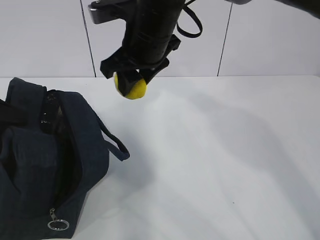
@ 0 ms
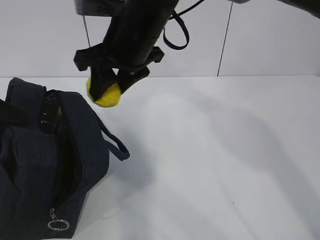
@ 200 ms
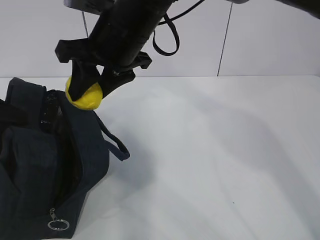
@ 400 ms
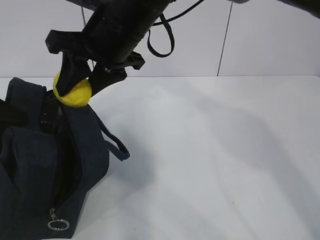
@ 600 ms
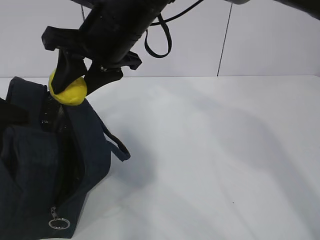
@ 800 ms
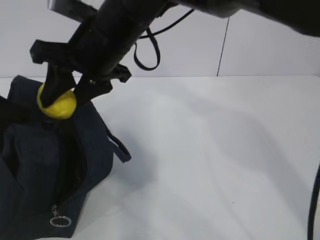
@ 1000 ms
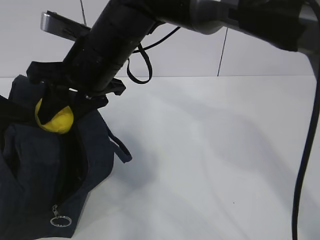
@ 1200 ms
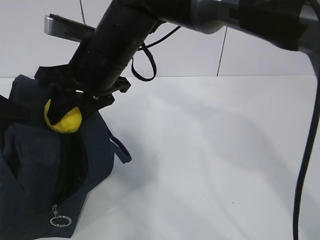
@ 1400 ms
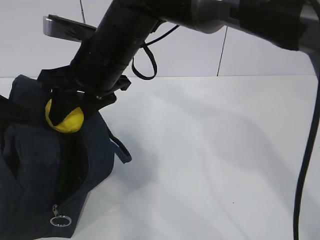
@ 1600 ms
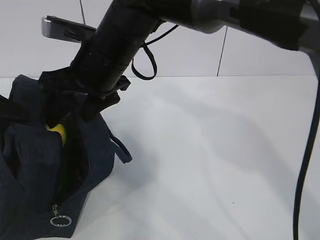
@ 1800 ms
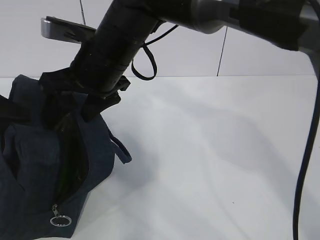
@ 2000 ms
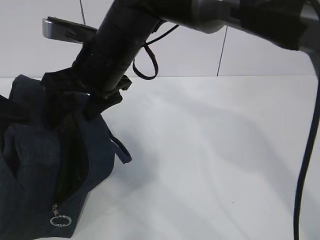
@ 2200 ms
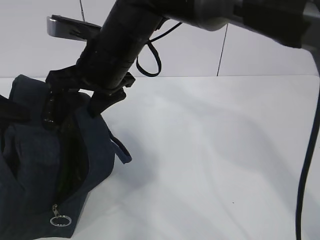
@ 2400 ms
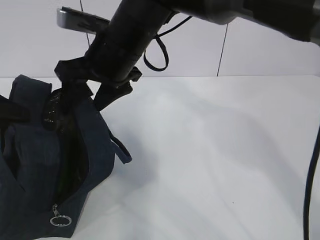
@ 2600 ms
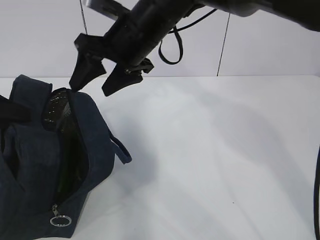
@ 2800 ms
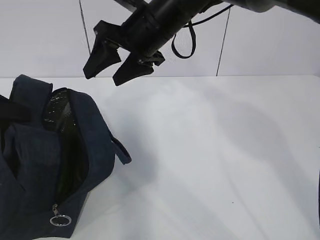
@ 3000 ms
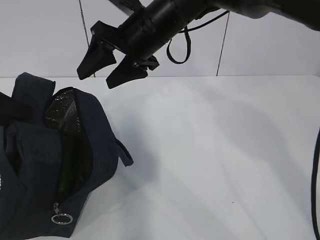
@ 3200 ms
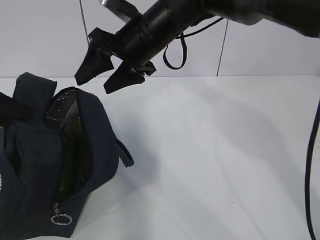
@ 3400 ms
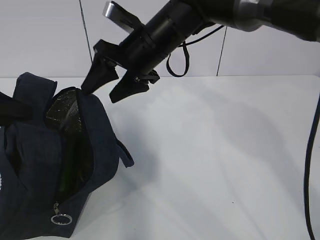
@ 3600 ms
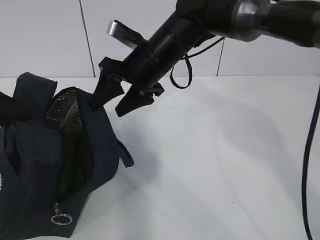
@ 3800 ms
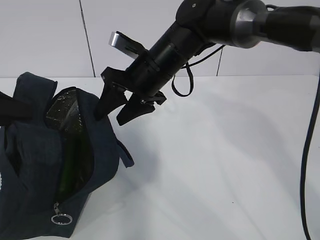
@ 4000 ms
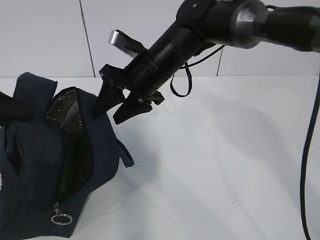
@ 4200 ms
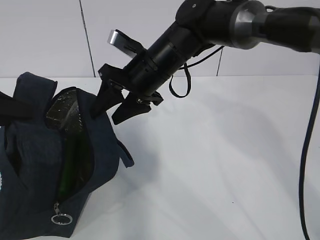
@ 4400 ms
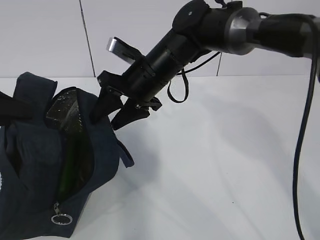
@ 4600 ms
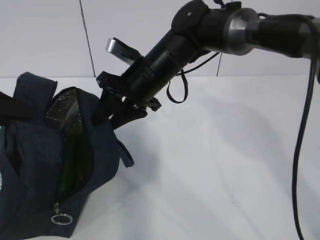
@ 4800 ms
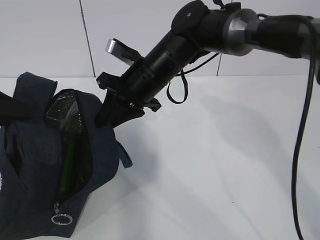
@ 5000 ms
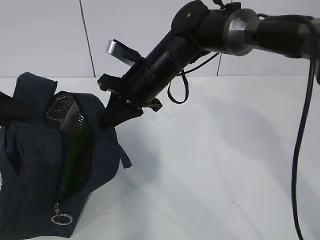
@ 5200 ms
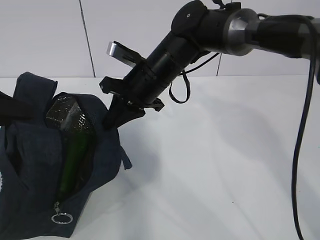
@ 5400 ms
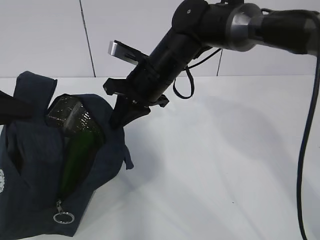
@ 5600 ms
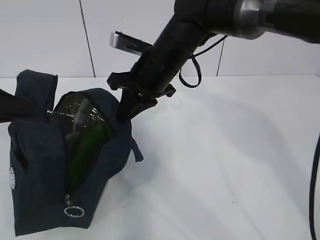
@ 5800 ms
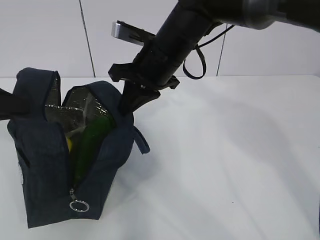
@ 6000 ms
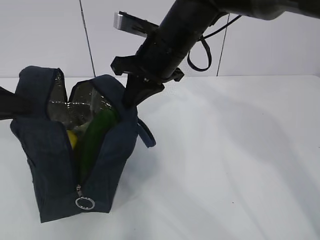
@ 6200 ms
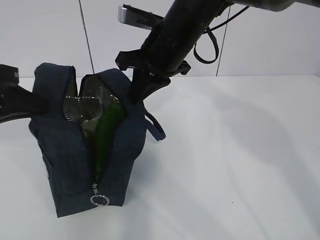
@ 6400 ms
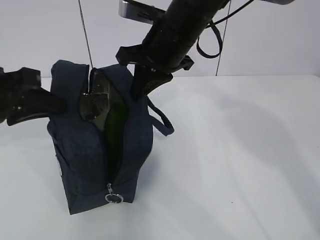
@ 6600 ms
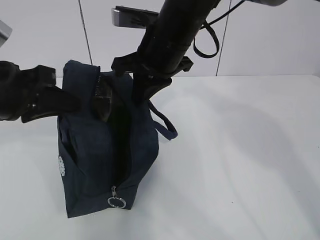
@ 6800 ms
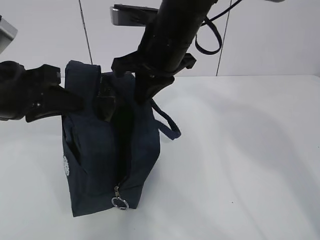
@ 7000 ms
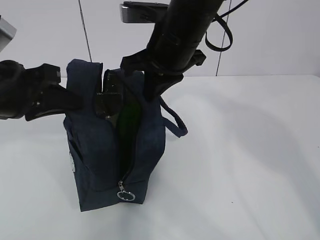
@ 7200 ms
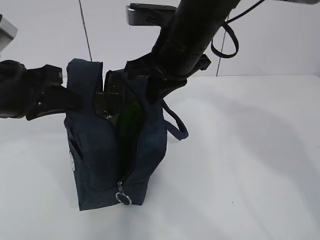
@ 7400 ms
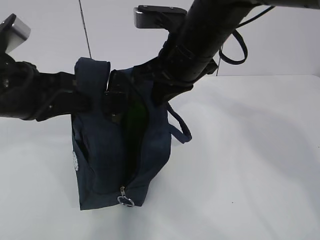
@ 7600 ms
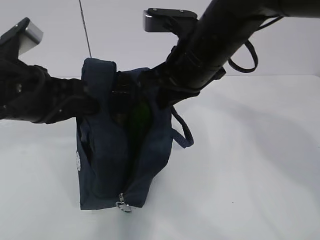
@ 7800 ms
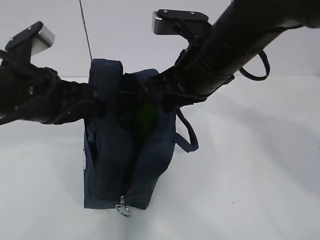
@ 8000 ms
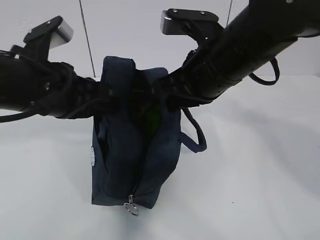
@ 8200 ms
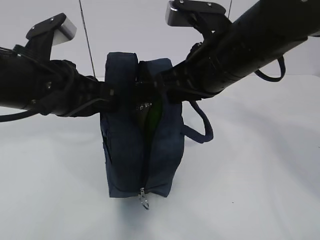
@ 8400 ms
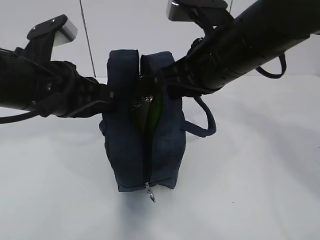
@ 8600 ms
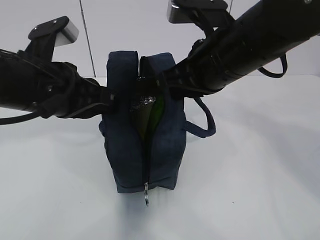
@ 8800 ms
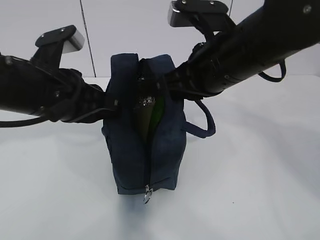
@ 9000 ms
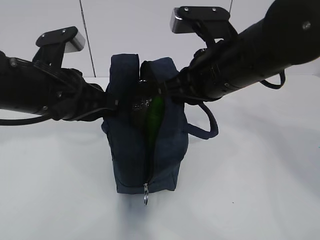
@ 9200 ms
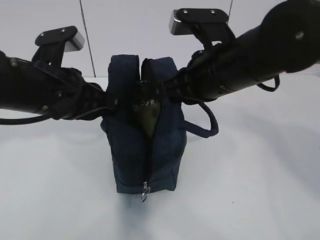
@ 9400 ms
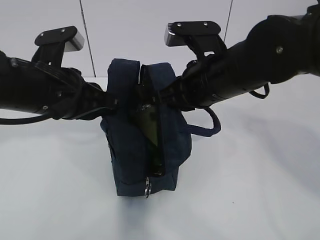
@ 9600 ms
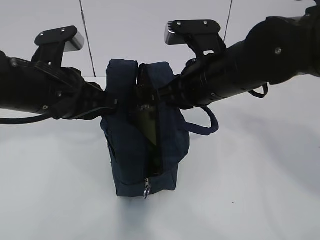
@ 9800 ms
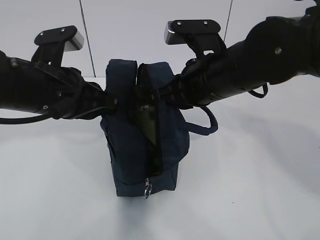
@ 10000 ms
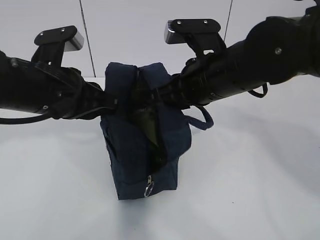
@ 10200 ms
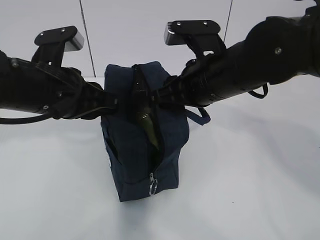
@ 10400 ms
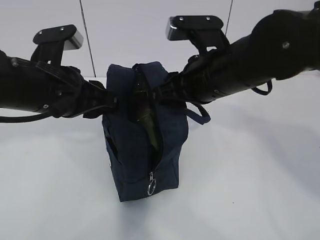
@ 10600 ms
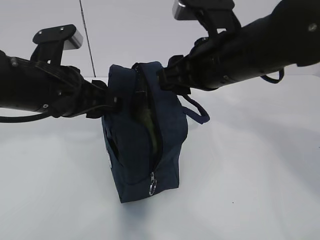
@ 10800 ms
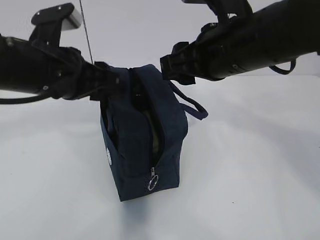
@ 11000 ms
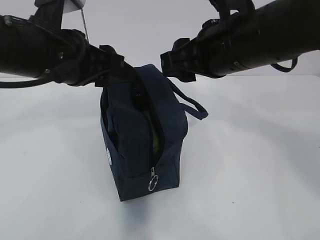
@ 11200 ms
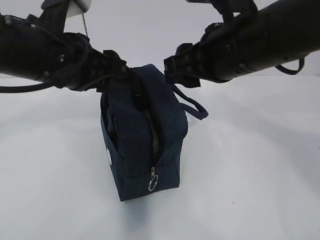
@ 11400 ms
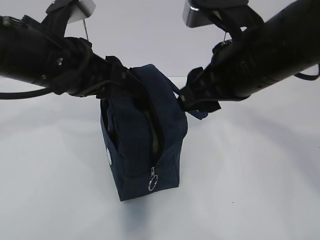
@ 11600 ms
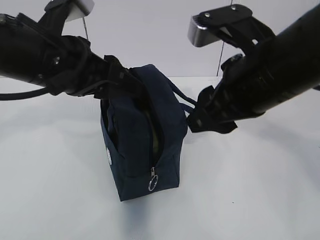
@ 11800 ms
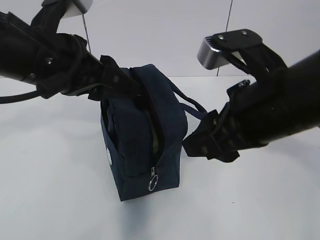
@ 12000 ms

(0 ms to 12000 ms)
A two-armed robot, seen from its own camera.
0 ms - 1600 ms: The right gripper heads to the left, covering roughly 5 cm.
1600 ms - 3000 ms: The right gripper is displaced to the right and forward by roughly 10 cm.
3000 ms - 4400 ms: The right gripper travels downward by some 5 cm.
4400 ms - 6000 ms: The right gripper closes.
6000 ms - 7600 ms: The right gripper shifts some 5 cm backward. Meanwhile the left gripper travels to the right by about 10 cm.
7600 ms - 9000 ms: The right gripper changes place by some 5 cm, while the left gripper shifts by approximately 5 cm.
9000 ms - 10400 ms: The right gripper opens up.
10400 ms - 12000 ms: The left gripper heads upward, covering some 5 cm, and opens its fingers. The right gripper heads backward, covering about 10 cm.

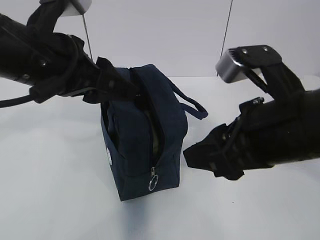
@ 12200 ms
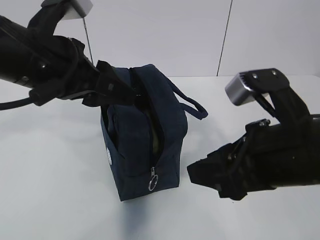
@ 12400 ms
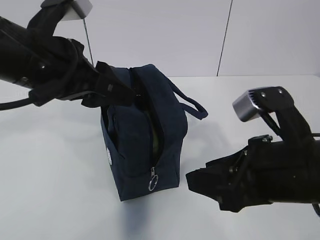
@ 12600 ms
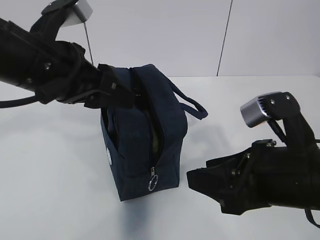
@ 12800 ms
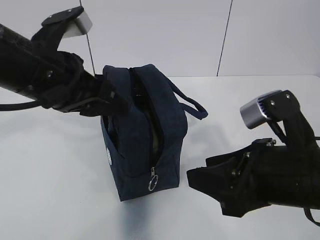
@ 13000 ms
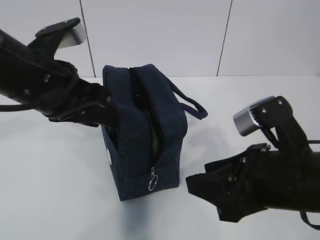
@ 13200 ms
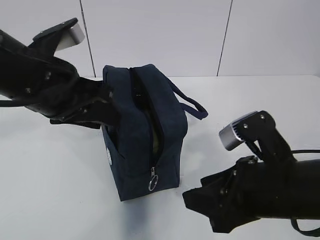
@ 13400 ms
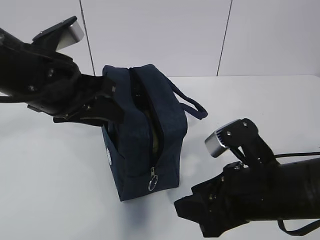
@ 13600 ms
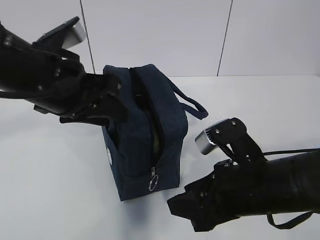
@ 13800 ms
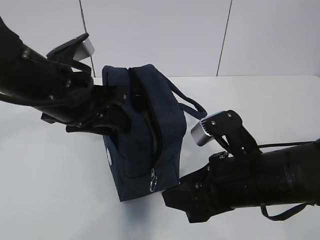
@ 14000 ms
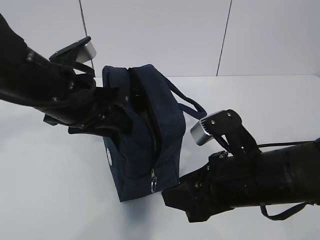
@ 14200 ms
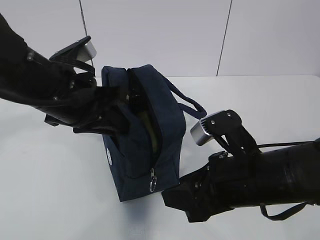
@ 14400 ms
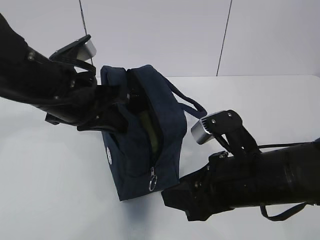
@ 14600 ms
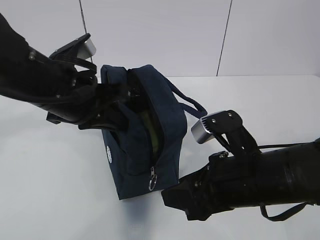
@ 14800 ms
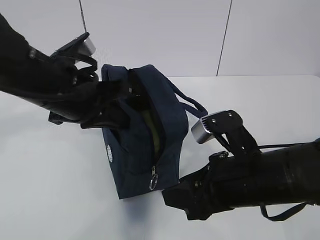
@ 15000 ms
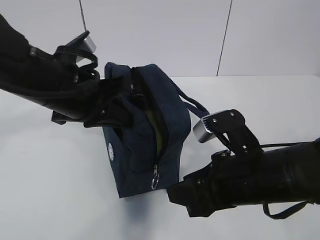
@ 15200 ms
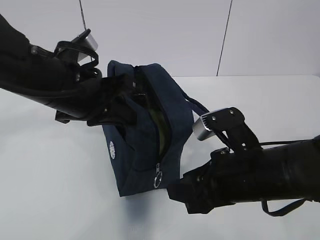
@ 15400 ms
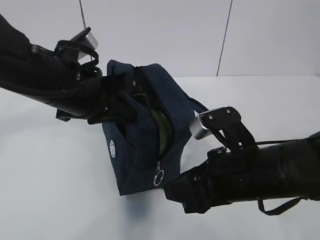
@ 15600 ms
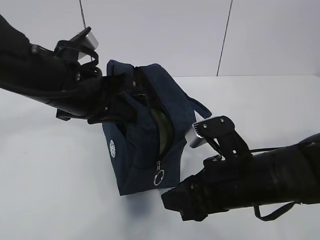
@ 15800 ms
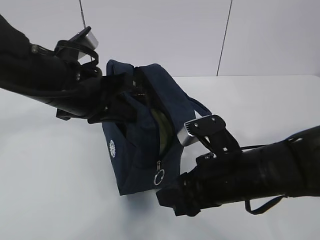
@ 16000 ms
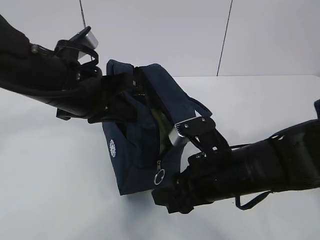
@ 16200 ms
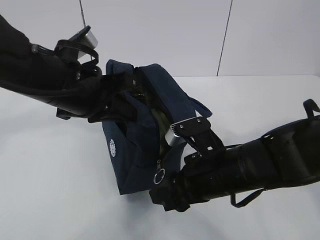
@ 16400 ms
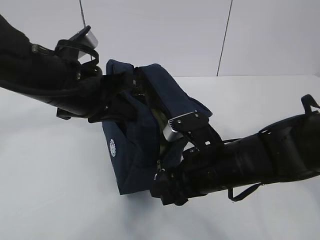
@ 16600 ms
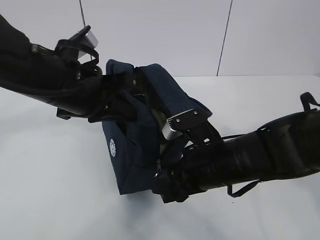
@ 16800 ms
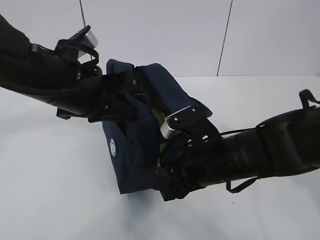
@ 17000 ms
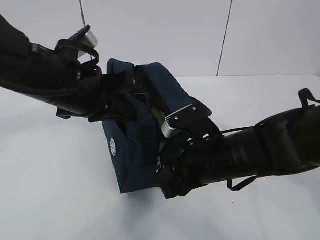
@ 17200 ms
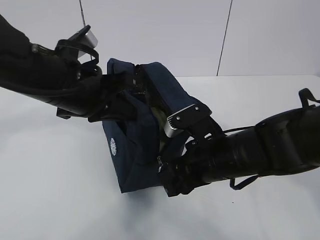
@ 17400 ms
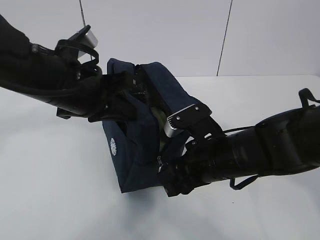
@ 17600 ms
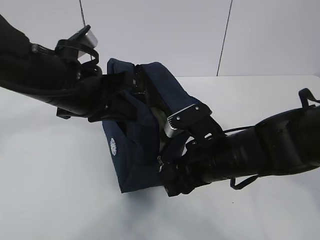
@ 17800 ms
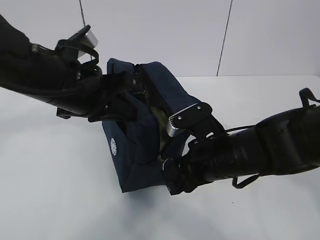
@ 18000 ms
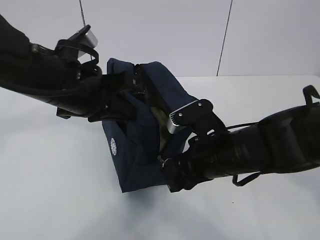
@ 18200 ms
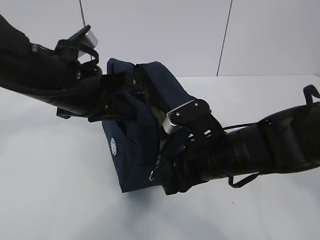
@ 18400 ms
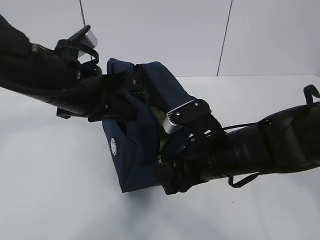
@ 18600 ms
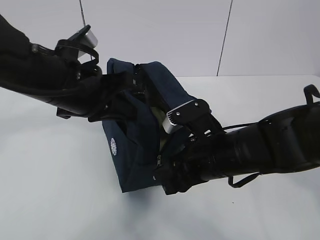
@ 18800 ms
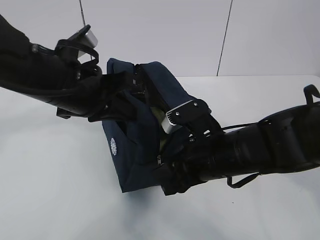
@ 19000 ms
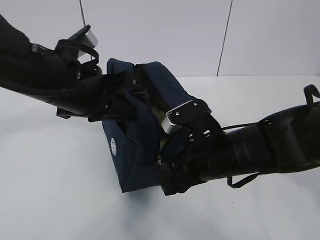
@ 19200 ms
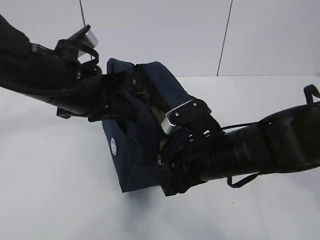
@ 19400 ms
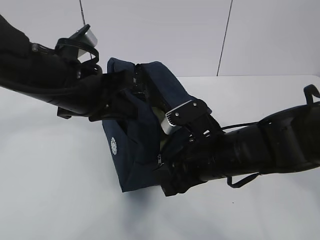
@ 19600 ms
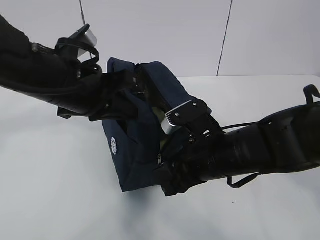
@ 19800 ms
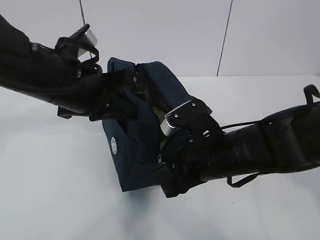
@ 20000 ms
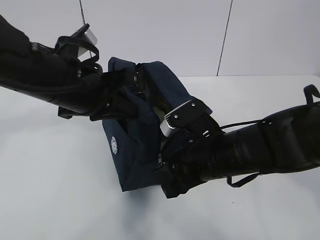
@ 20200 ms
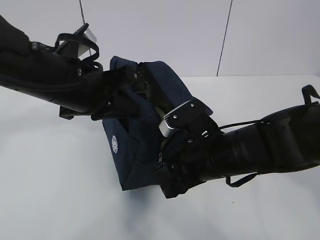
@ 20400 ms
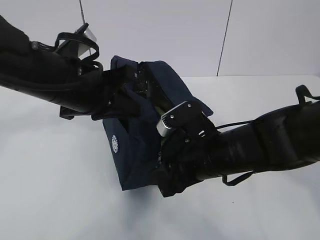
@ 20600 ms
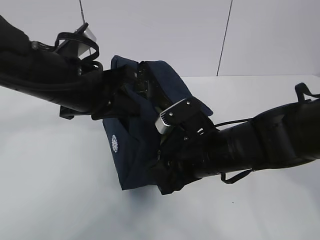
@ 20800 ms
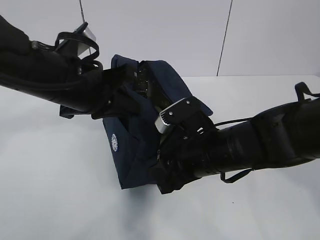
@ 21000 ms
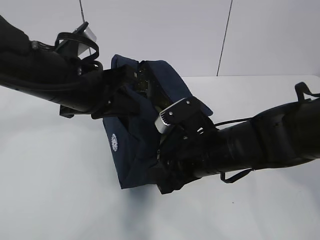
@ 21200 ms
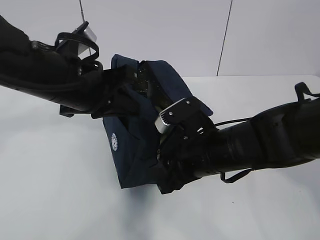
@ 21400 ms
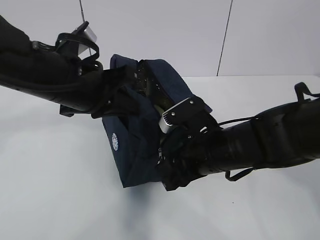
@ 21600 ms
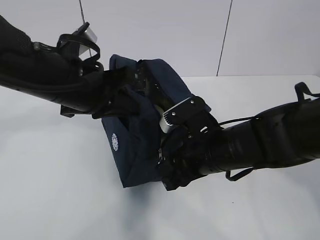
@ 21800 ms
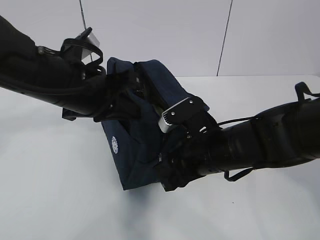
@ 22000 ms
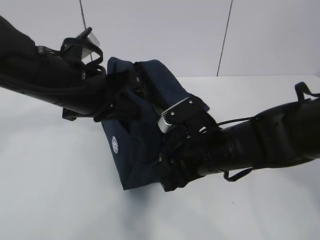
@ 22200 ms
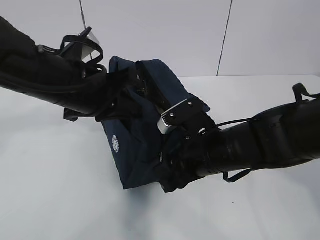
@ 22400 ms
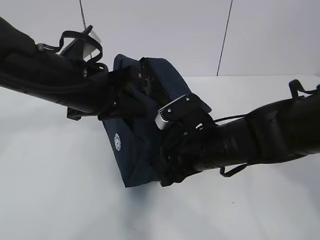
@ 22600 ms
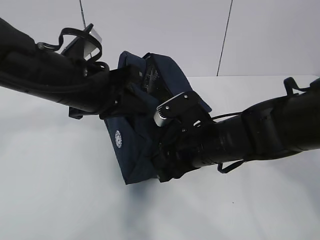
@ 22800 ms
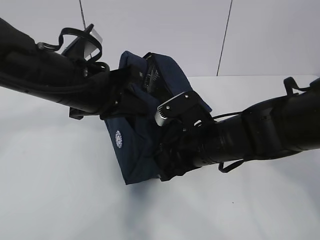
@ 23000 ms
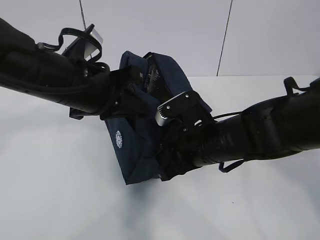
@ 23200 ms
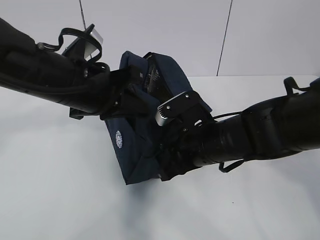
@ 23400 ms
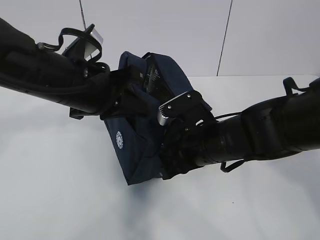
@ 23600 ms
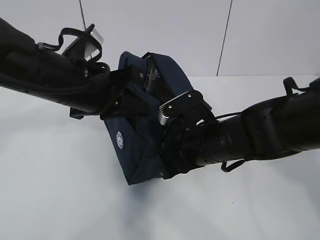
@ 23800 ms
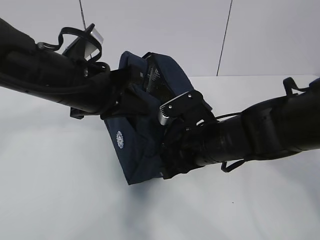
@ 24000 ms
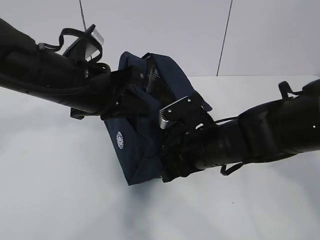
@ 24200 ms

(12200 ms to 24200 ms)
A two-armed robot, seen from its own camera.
12200 ms - 13800 ms: The right gripper shifts about 10 cm downward.
13800 ms - 15200 ms: The left gripper closes its fingers.
15200 ms - 16600 ms: The right gripper moves approximately 5 cm.
16600 ms - 19800 ms: There are only small adjustments of the grippers.
19800 ms - 21200 ms: Neither gripper changes place.
21200 ms - 24200 ms: The grippers move only a little.
